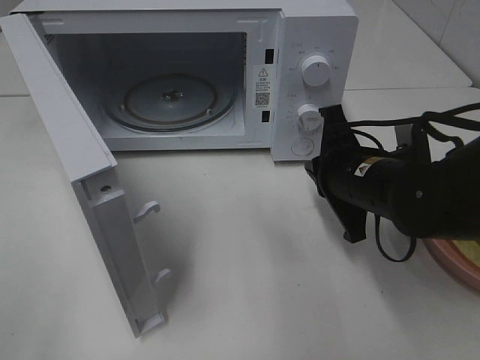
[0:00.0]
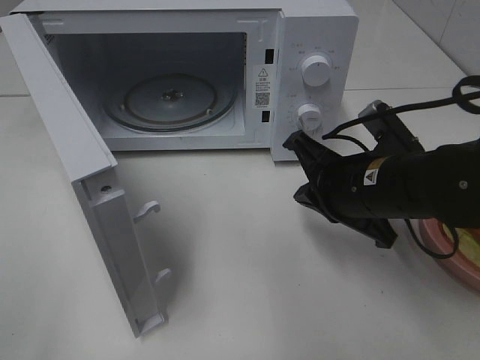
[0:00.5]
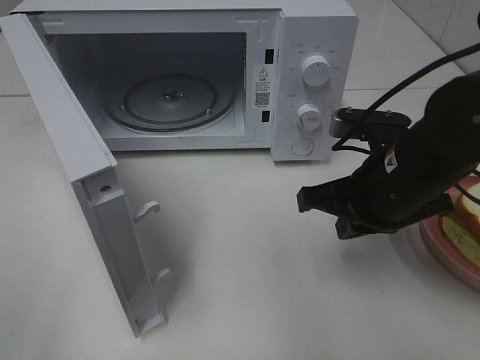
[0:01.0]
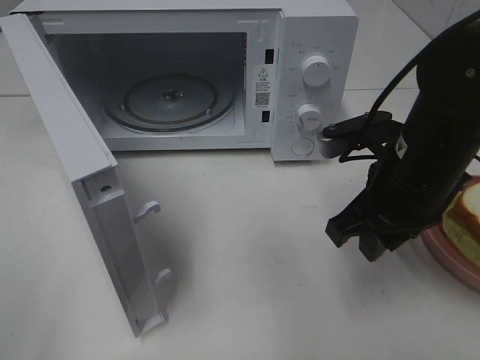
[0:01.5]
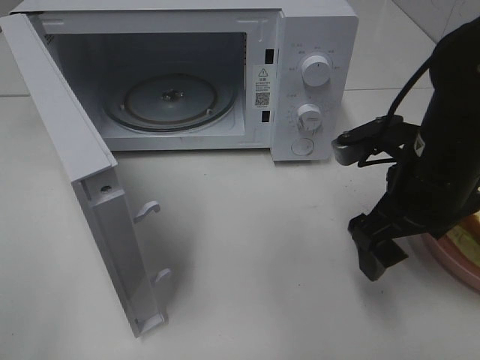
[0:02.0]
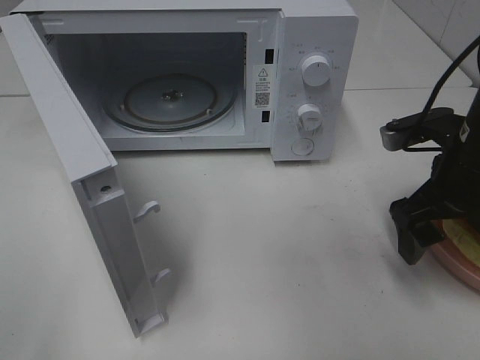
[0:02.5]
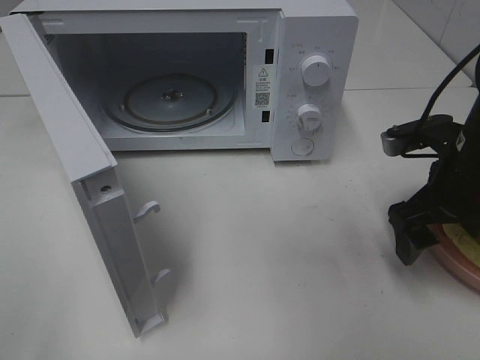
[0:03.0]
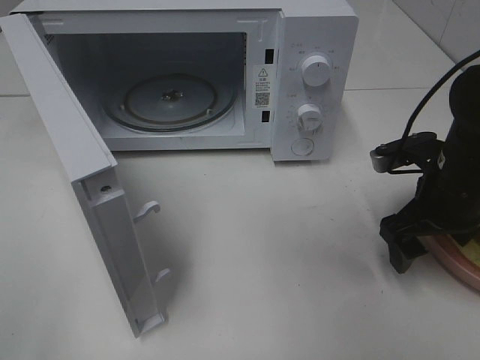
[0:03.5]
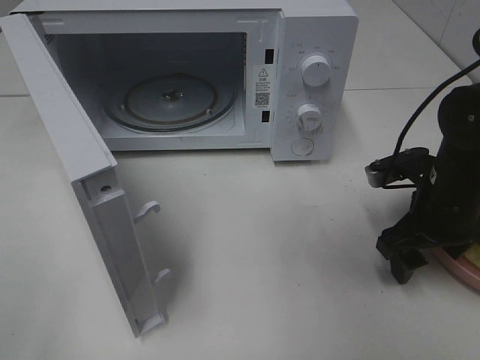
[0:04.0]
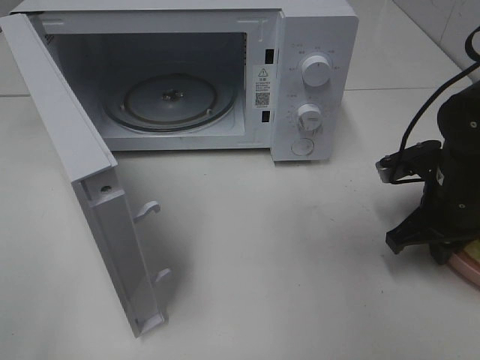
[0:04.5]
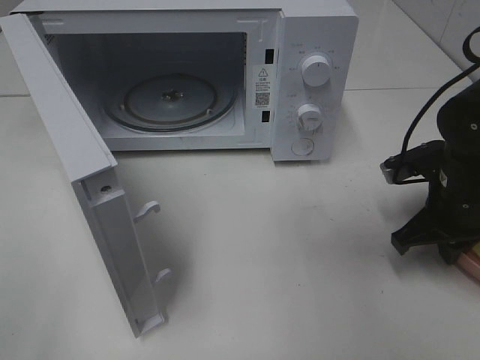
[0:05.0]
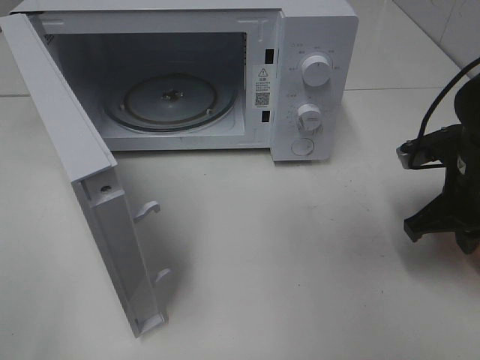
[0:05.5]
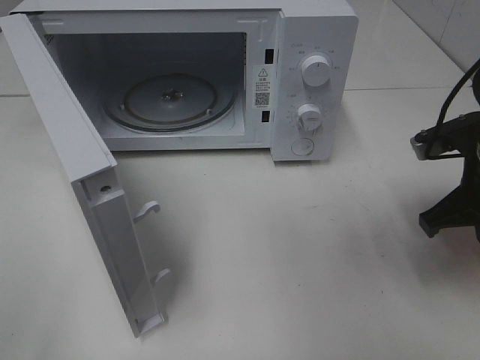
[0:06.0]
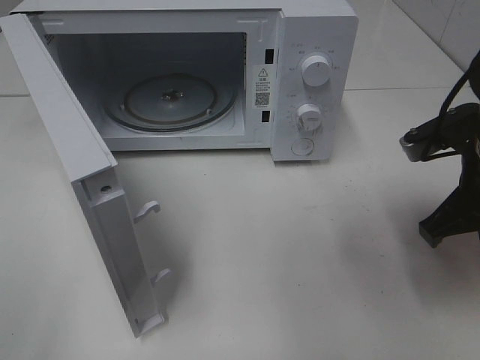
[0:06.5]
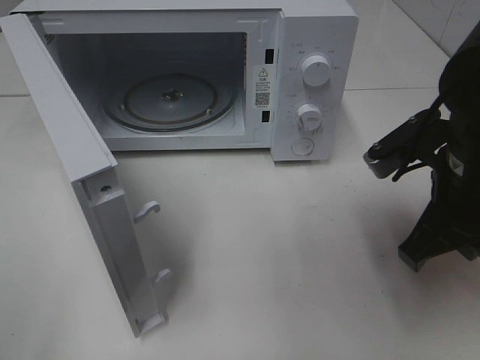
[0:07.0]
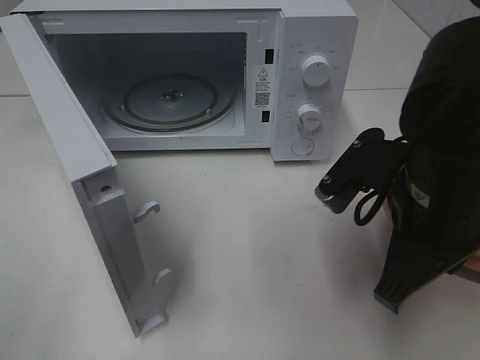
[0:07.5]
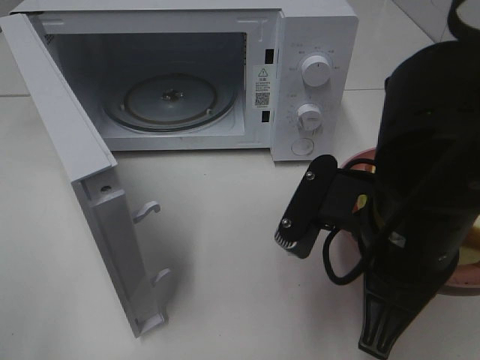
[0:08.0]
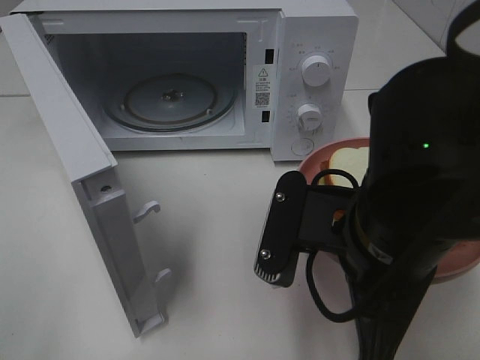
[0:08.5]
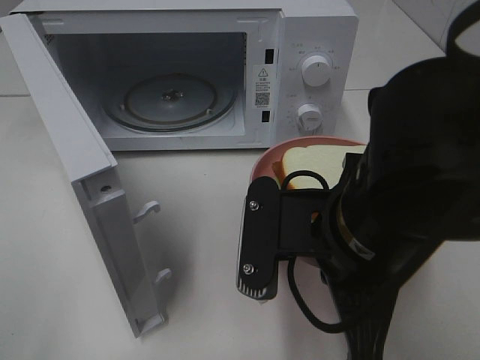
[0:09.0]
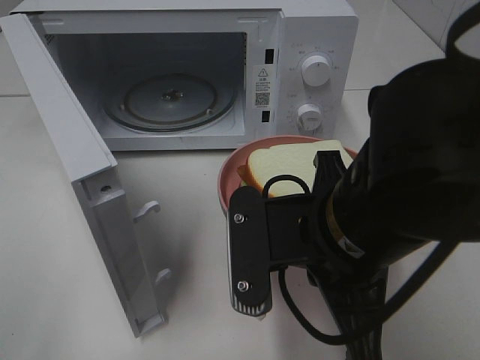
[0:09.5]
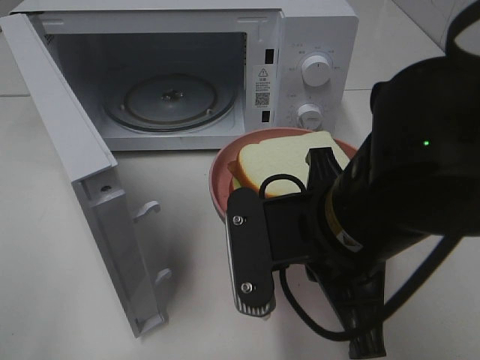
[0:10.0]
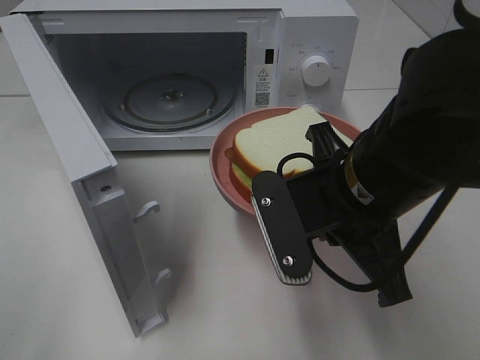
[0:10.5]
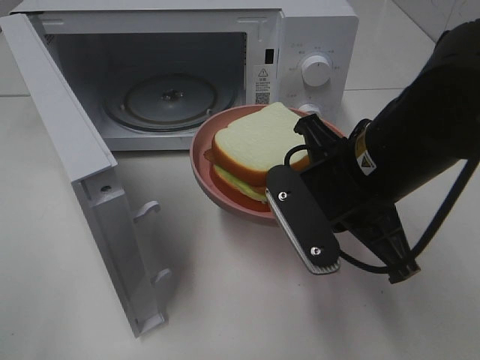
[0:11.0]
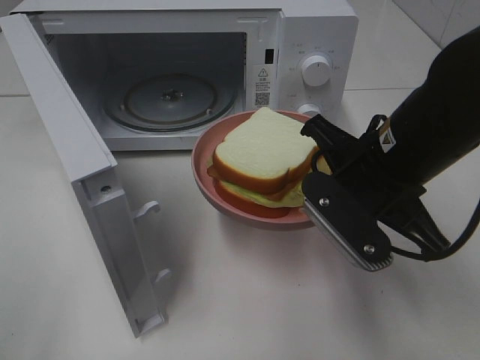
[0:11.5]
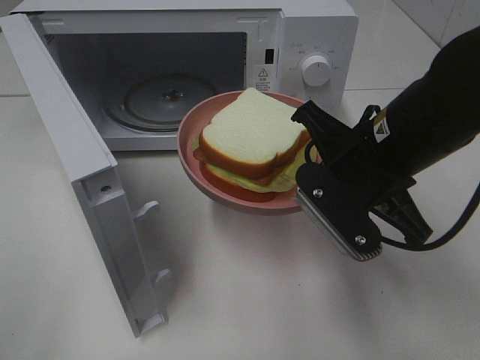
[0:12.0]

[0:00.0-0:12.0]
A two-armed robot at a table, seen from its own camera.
Task of the whole recording: Heat Sandwich.
Step, 0.0 to 4.5 s: Right hand: grab the plate with the sandwich.
0.0 to 2.0 s: The right gripper goes roughly 5 cm upward, and opens.
2.0 to 4.0 s: The right gripper goes approximately 10 cm downward and to the right.
4.0 to 6.0 s: The right gripper is displaced upward by approximately 5 cm, and closes its fingers.
6.0 to 8.0 s: The right gripper heads to the left and backward, covering roughly 15 cm.
10.0 to 12.0 s: The right gripper goes about 10 cm forward and to the right.

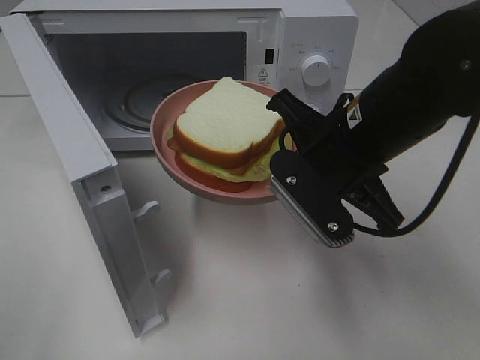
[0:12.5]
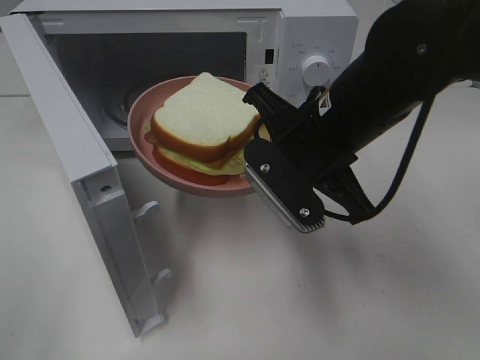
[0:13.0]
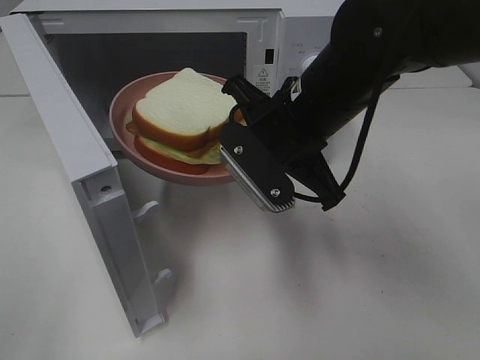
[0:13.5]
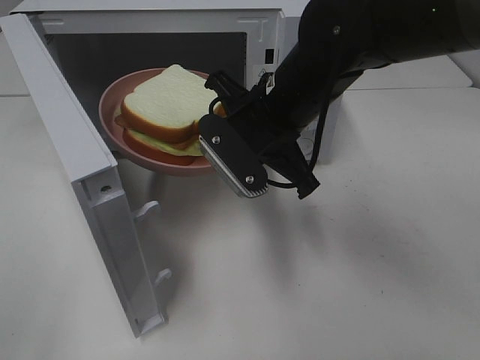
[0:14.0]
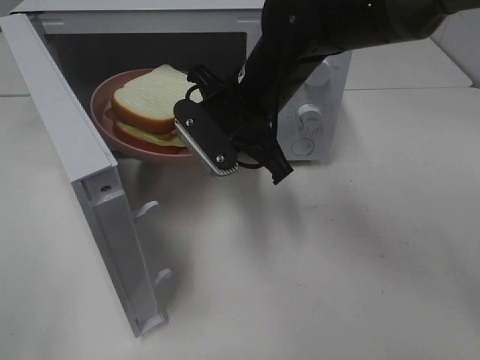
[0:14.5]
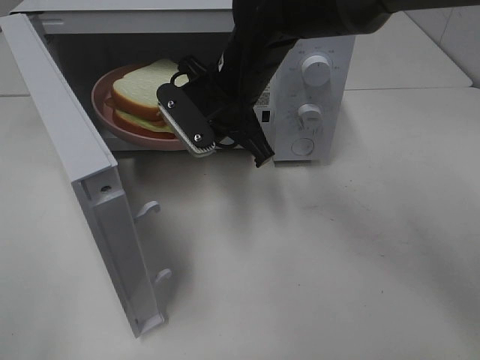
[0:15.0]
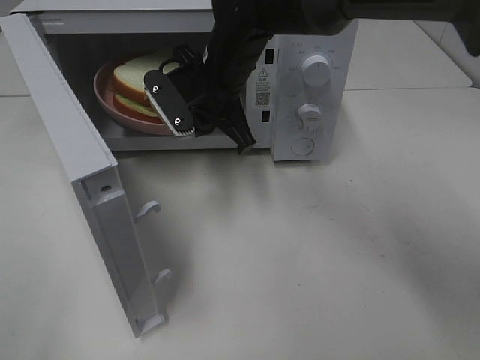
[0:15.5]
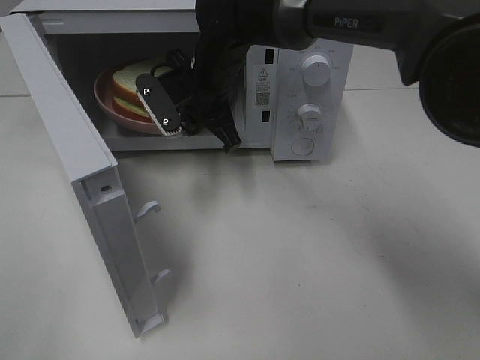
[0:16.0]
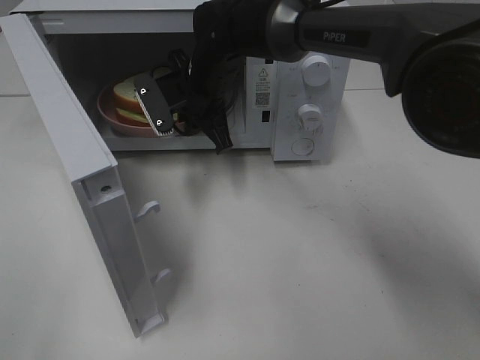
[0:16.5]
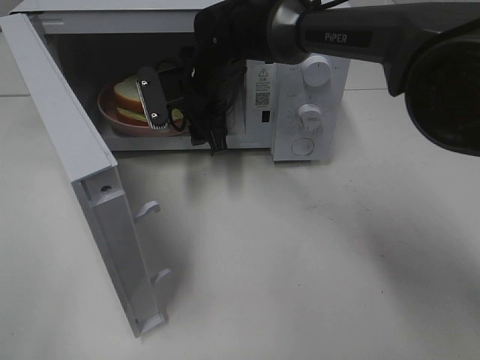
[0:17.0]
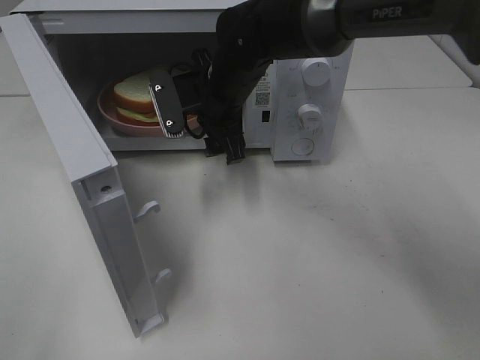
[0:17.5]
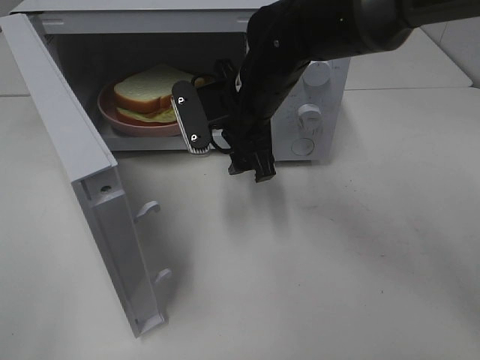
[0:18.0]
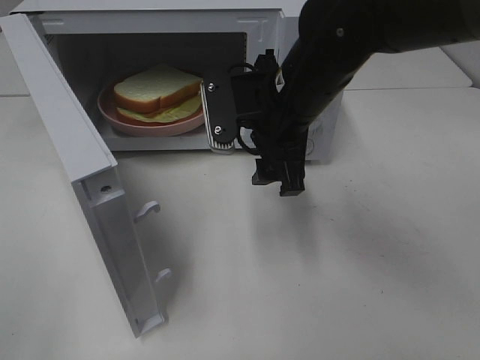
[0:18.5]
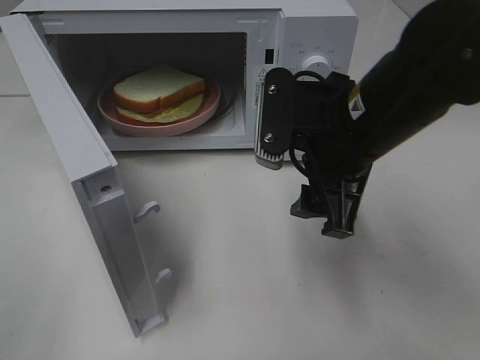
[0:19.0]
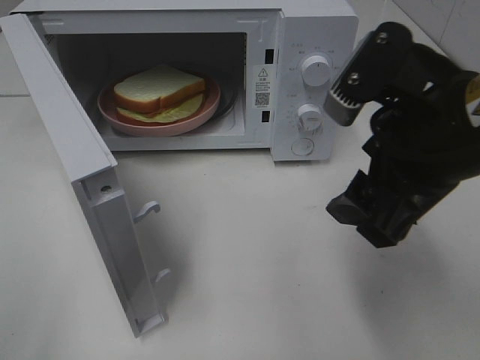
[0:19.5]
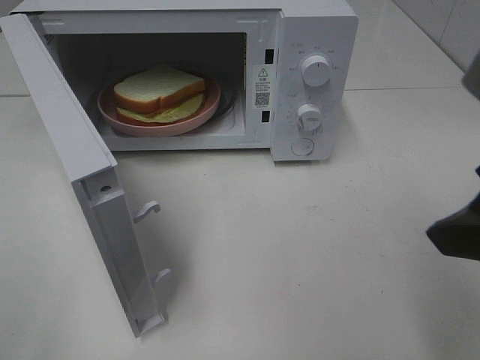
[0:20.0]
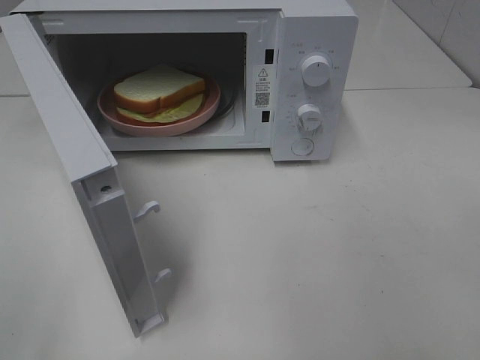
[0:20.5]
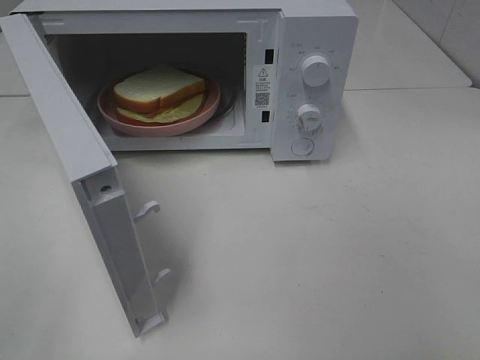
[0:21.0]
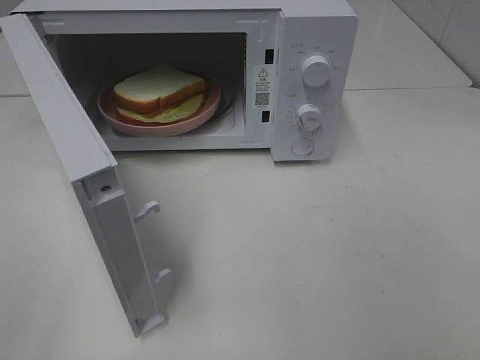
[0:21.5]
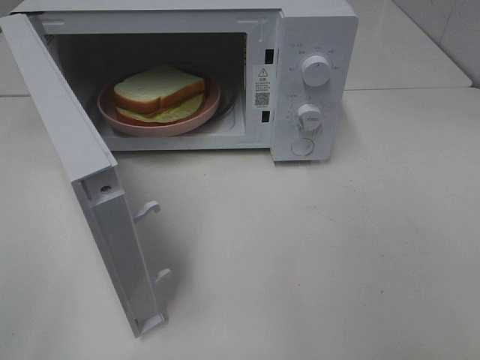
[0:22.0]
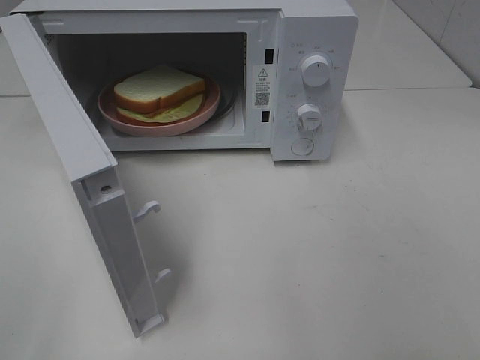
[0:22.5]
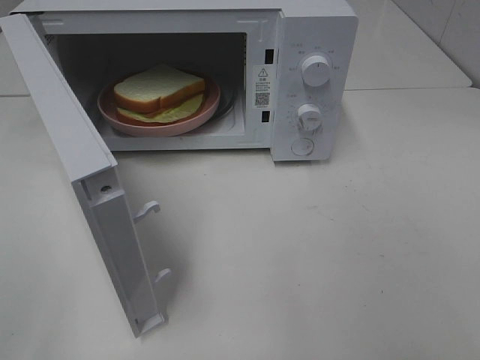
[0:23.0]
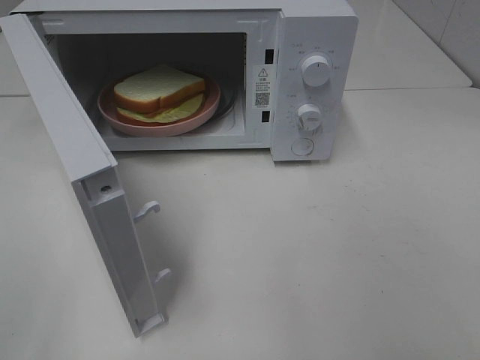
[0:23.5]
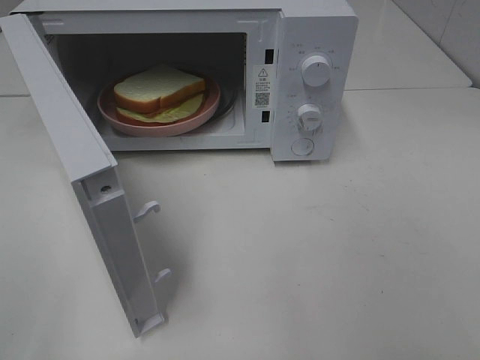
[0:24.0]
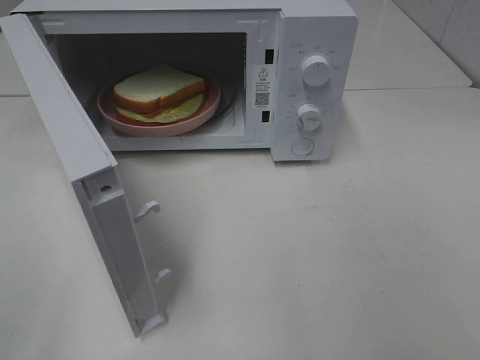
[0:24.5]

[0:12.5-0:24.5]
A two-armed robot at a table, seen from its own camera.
Task of the whole recording: Heat Sandwich.
Step, 12.5 to 17.5 s: Right hand: place the plate in the microwave.
12.5 to 14.5 s: The right gripper shifts about 10 cm forward and to the left.
14.5 to 16.5 s: The right gripper is displaced forward and to the left by approximately 10 cm.
16.5 to 18.5 s: The right gripper goes roughly 15 cm backward and to the right, and opens up.
18.5 to 20.5 s: The right gripper shifts about 35 cm backward, to the right and upward.
22.5 to 24.5 s: Both grippers stay about where they are.

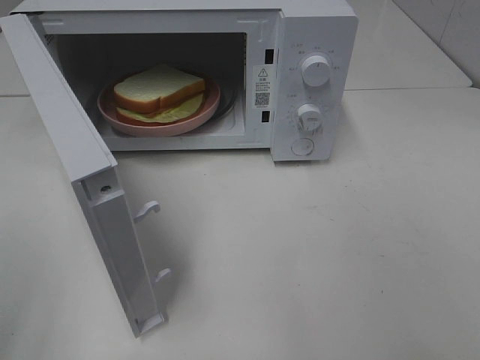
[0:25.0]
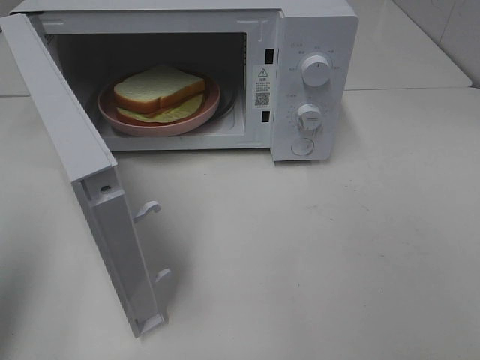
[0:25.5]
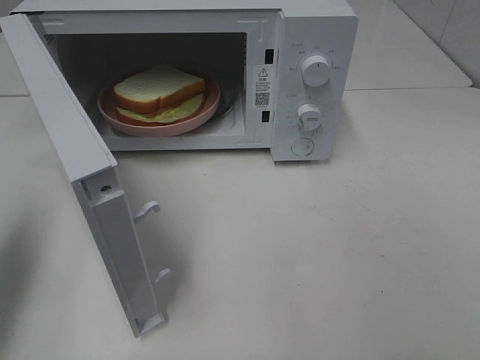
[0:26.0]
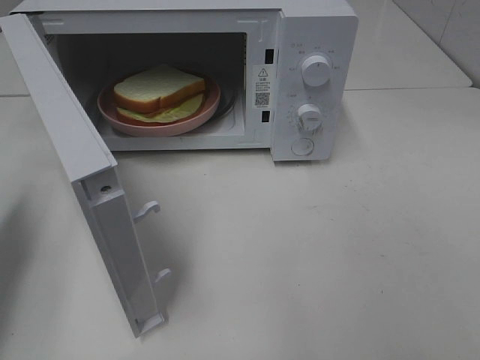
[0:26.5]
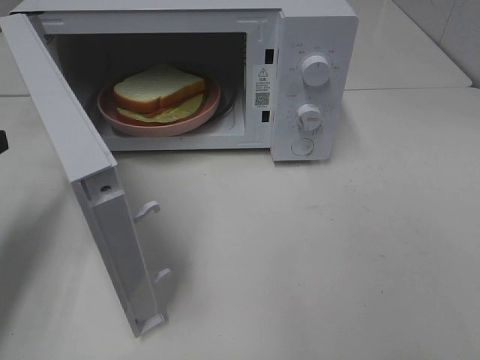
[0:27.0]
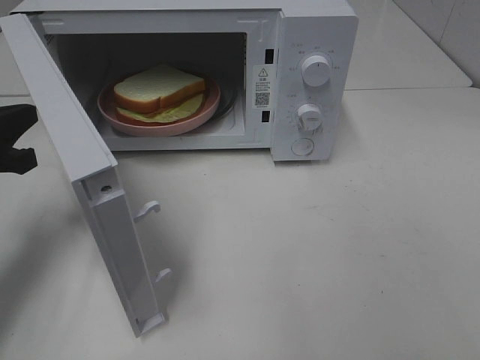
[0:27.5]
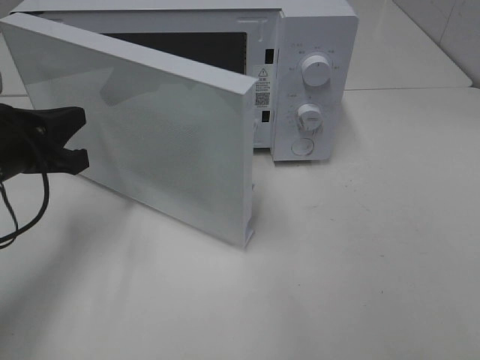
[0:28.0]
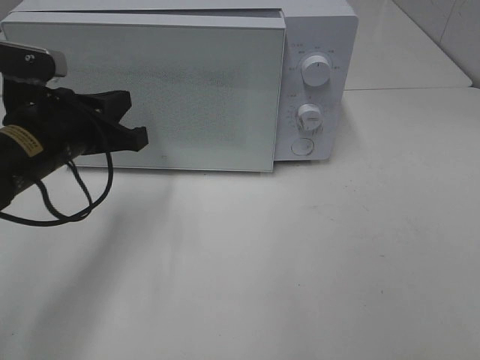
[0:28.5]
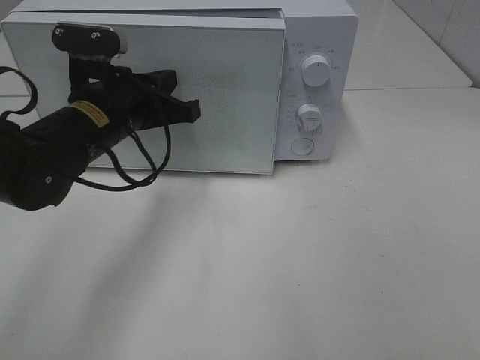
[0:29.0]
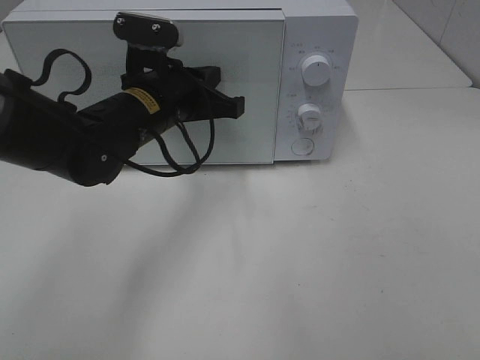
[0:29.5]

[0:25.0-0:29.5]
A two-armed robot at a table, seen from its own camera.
Task of the whole recording: Heat Sandwich.
25.0 to 27.0 s: The left gripper travels forward and downward by about 25 cm, and closes its fingers.
27.0 to 29.5 s: The left gripper goes approximately 20 cm to the right.
